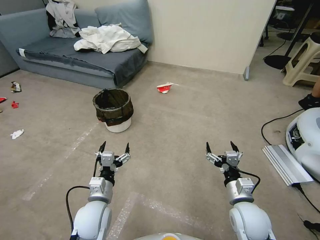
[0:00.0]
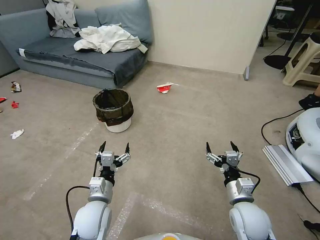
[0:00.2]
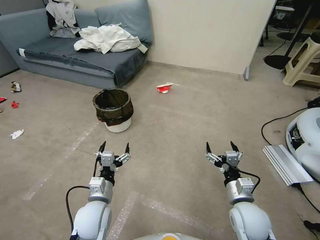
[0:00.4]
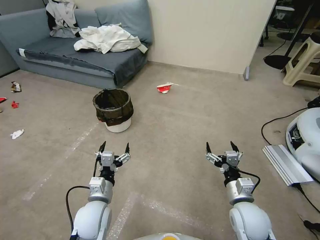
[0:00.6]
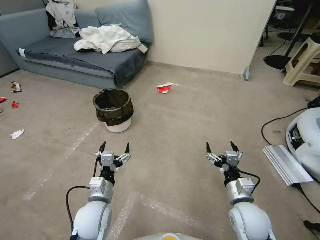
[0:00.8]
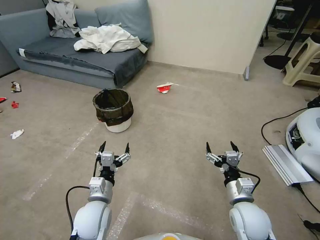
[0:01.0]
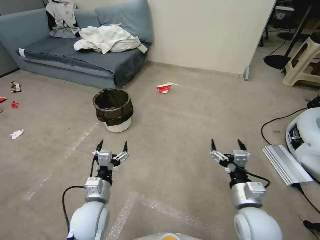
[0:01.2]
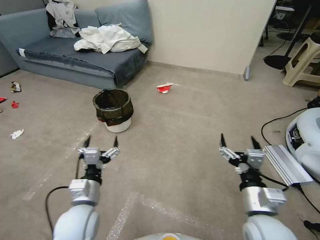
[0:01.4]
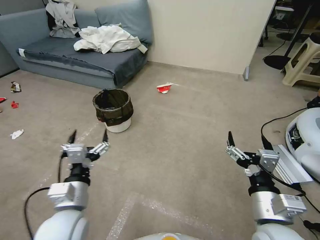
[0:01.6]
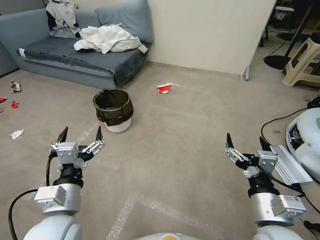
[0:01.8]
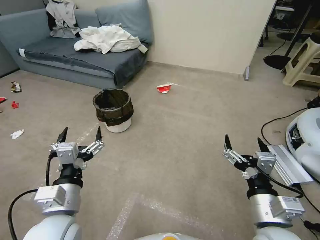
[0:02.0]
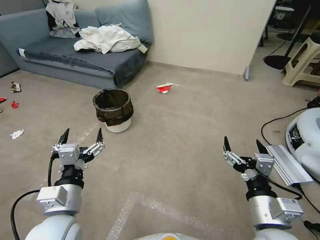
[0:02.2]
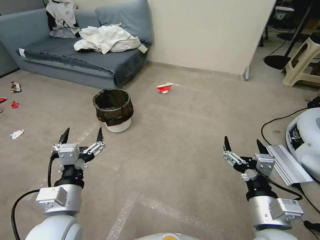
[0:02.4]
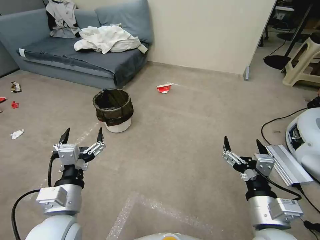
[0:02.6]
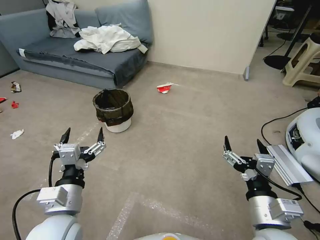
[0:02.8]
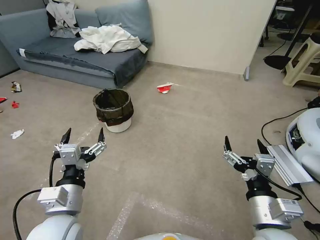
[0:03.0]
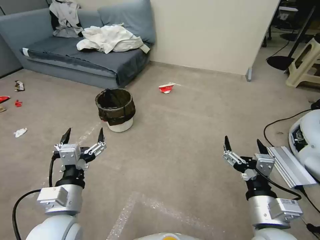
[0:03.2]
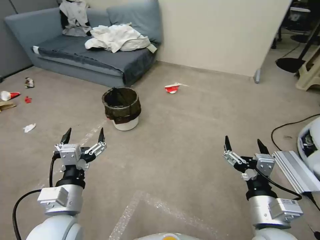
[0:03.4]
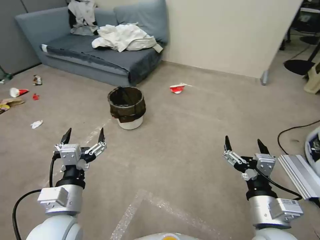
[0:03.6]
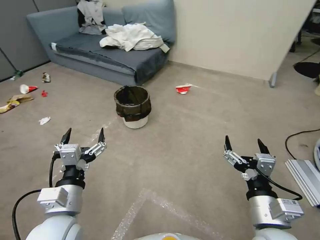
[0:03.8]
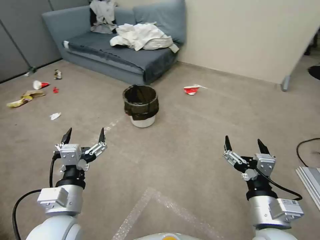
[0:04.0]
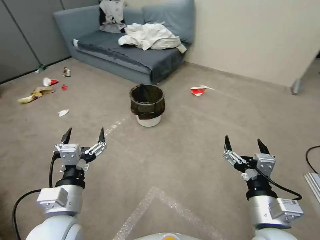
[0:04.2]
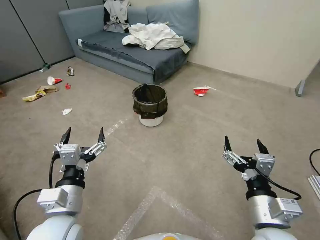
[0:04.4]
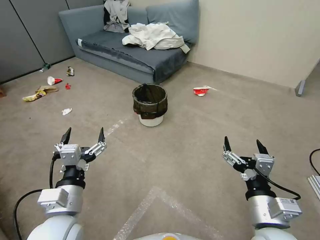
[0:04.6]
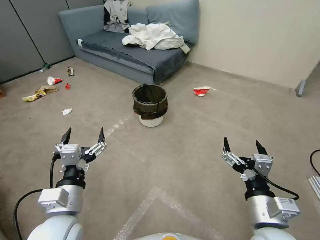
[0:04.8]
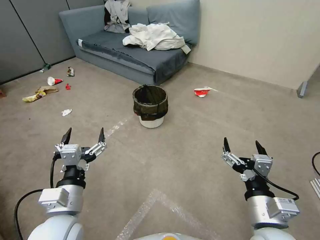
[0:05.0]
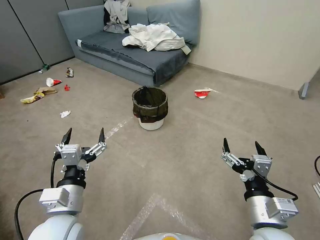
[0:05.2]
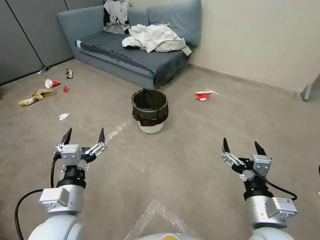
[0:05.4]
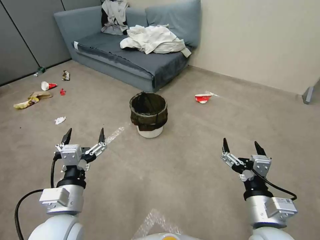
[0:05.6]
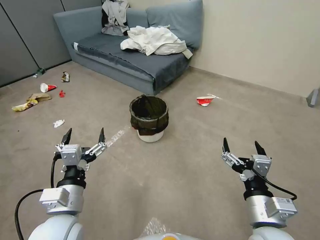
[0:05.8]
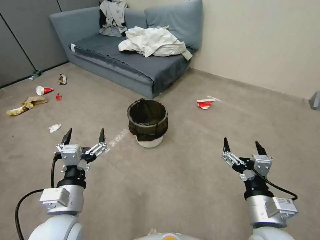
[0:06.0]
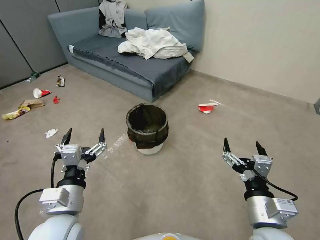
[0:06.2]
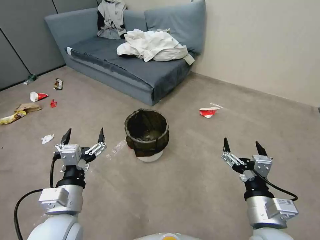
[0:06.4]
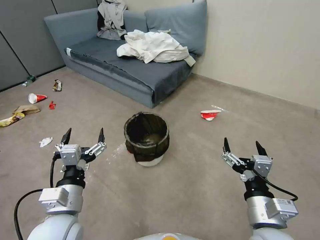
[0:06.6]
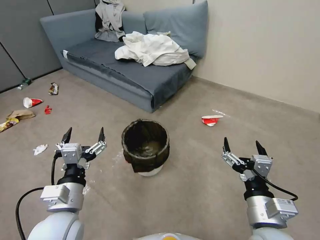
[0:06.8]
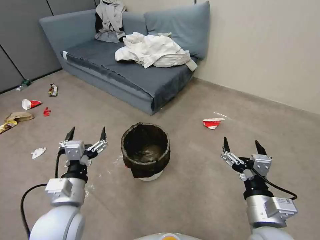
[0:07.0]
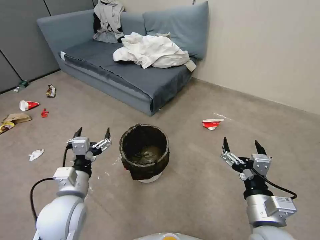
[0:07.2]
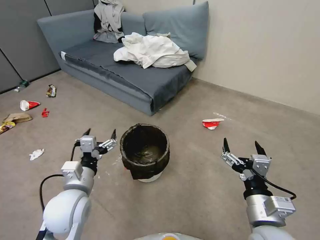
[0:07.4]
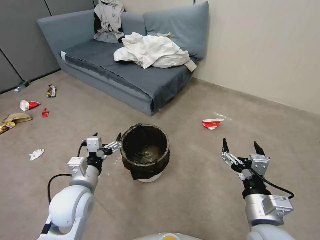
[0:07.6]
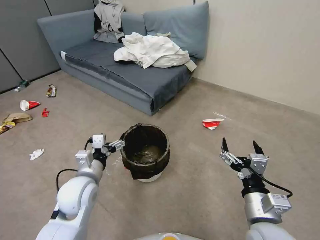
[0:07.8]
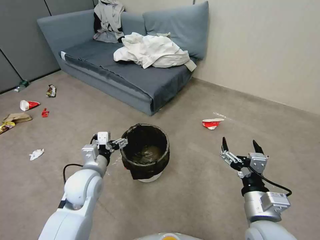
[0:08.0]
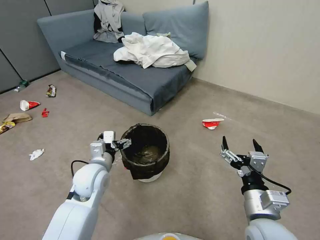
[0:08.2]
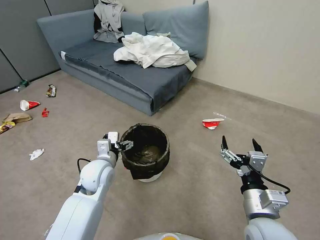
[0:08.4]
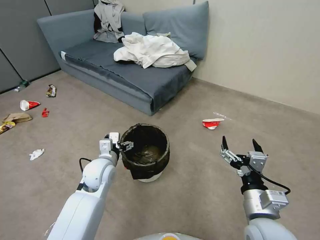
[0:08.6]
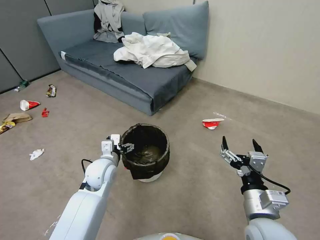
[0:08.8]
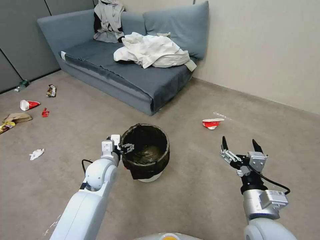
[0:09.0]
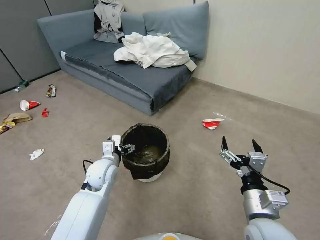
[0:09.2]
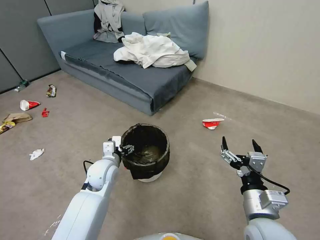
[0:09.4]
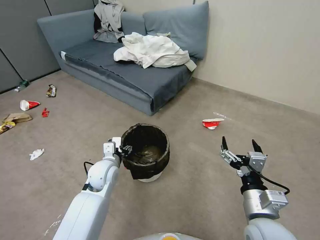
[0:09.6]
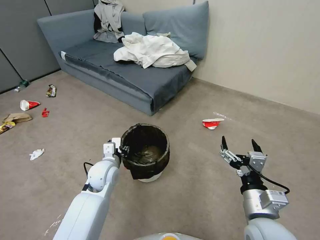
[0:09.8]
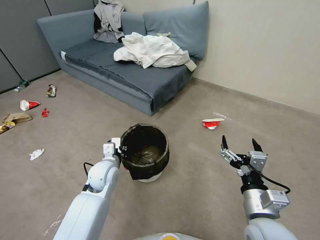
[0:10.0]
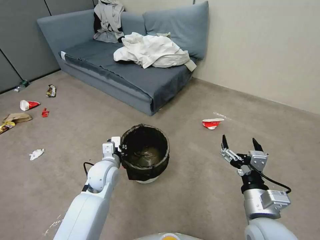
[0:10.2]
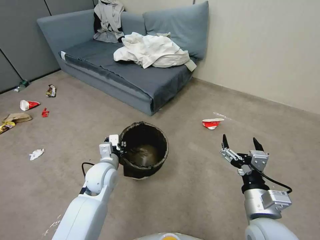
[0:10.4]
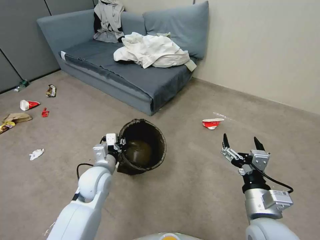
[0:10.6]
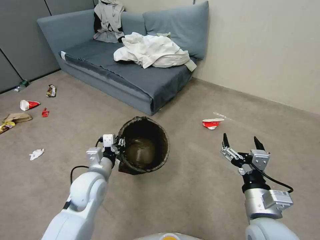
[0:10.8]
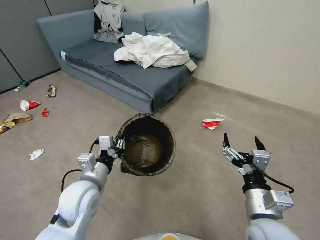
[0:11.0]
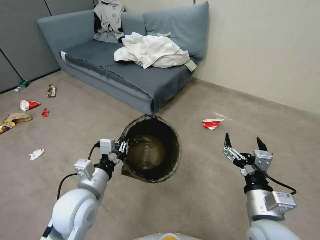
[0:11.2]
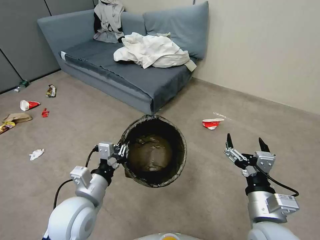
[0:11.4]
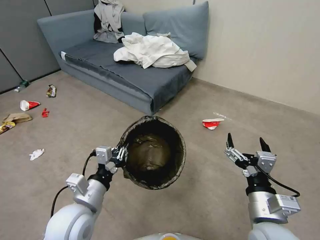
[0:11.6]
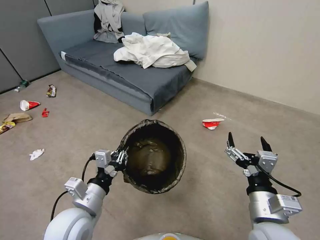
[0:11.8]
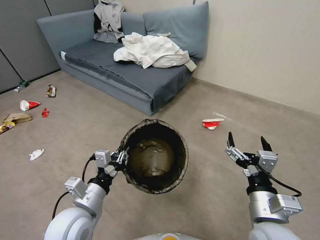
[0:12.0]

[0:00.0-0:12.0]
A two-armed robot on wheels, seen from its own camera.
Task of the whole recording: Pick up the trash can from the floor.
0:01.6 to 0:03.0: The grippers stay close to where they were, moving slightly.
0:04.4 to 0:06.0: Both grippers stay put.
0:06.0 to 0:07.6: The left gripper heads forward, covering roughly 5 cm.
0:07.6 to 0:09.0: The left gripper is displaced forward and downward by roughly 10 cm.
0:09.0 to 0:10.4: The left gripper closes.
0:10.4 to 0:12.0: The left gripper shifts some 15 cm backward.
